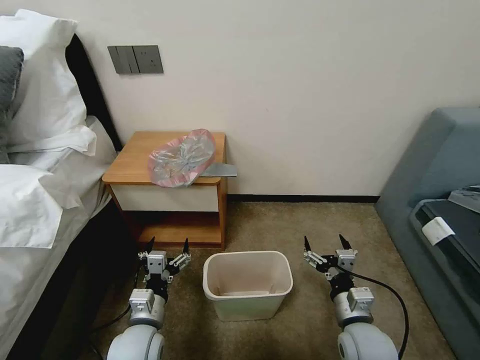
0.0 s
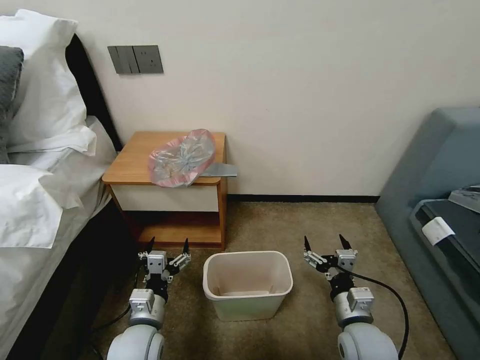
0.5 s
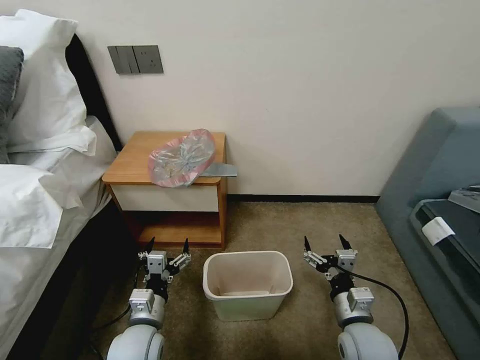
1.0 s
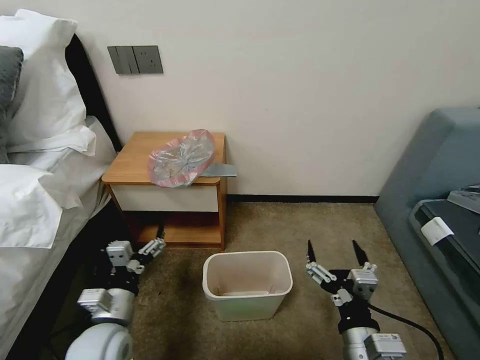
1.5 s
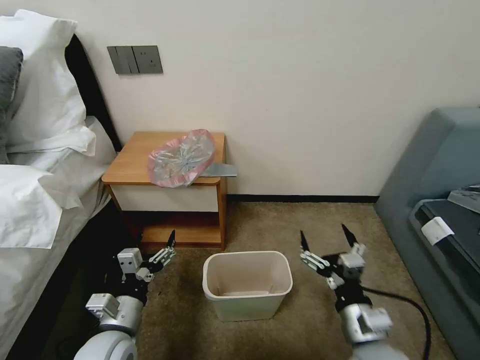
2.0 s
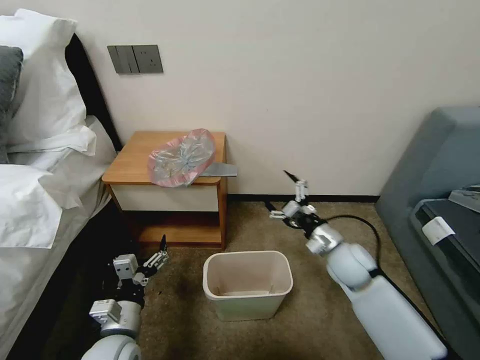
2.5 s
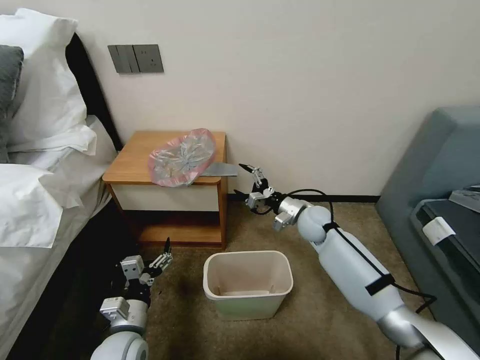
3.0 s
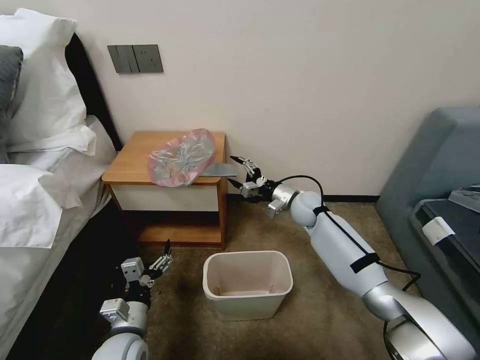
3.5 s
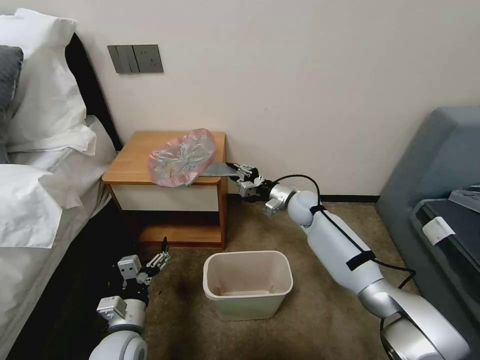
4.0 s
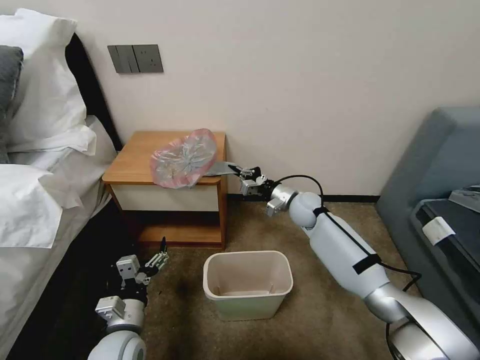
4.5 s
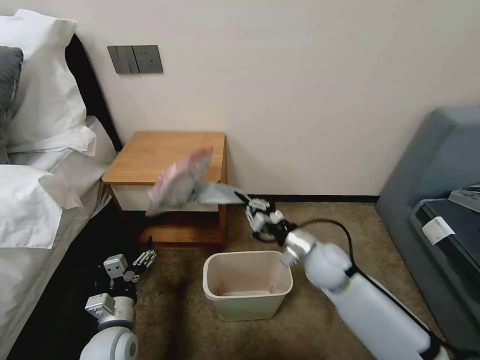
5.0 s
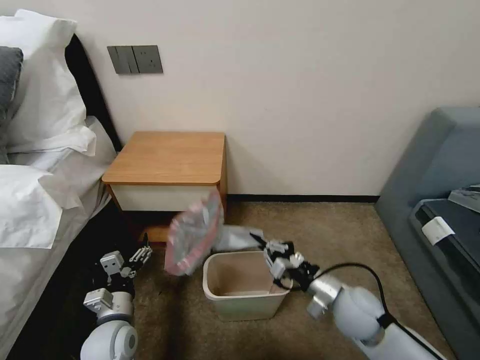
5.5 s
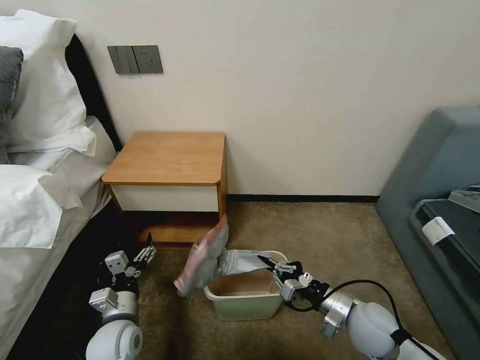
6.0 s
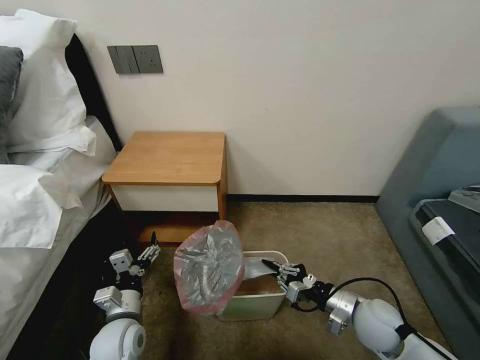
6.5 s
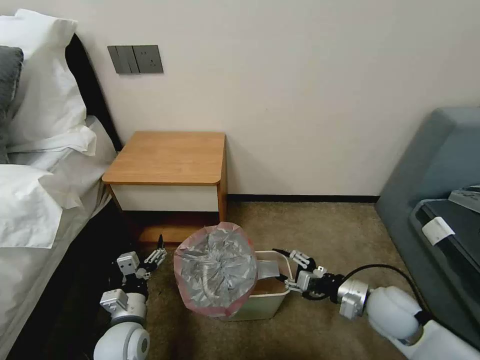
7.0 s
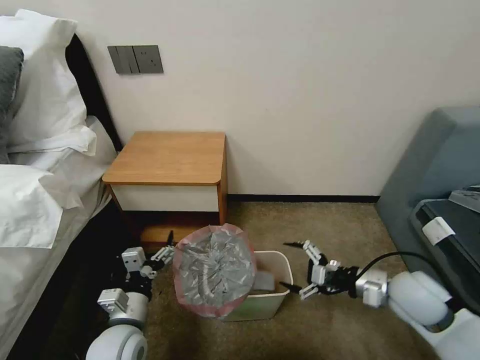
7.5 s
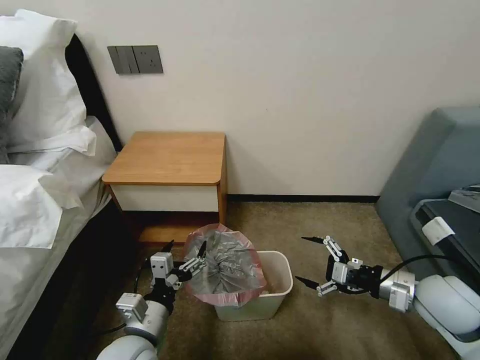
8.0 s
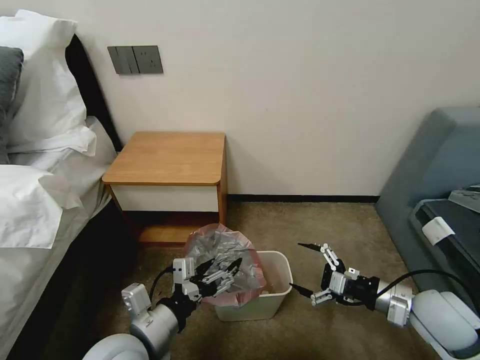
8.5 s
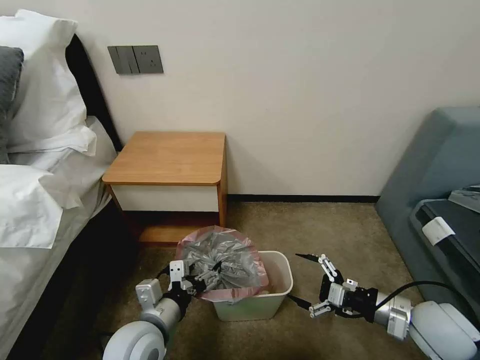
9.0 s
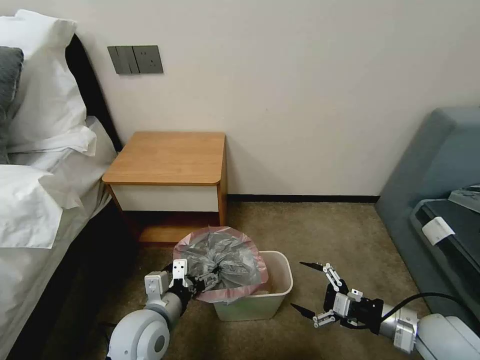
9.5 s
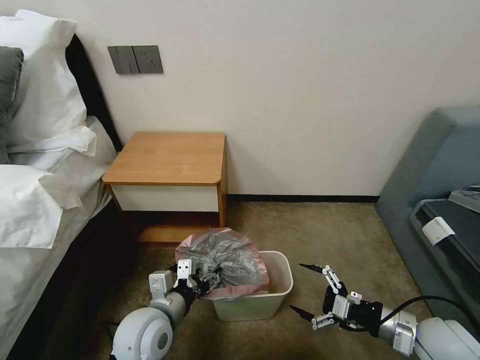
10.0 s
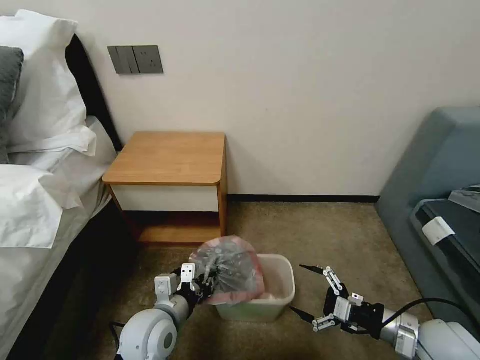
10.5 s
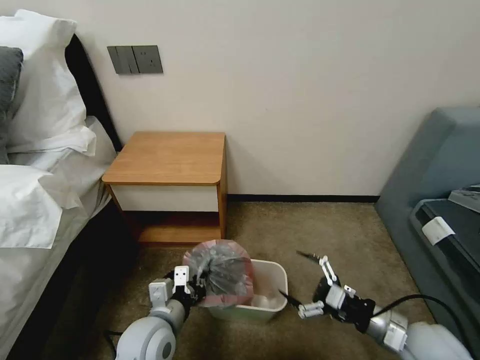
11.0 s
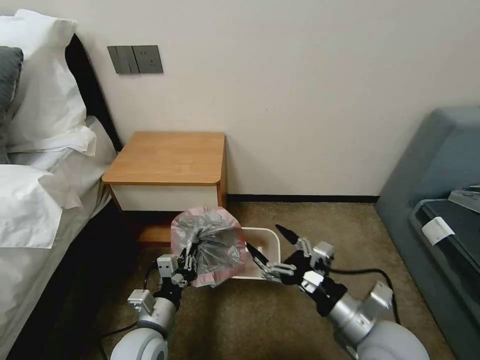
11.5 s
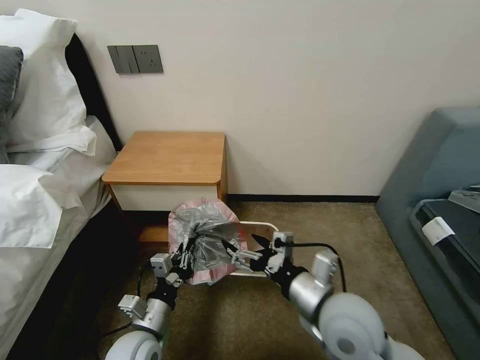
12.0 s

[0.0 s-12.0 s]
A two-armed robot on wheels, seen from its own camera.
Task of the whole recording: Pick up the garbage bag from the table and place it over the trash can.
2.0 to 4.0 s: The right gripper travels forward by about 40 cm, and closes up.
4.0 to 6.0 s: The right gripper is displaced backward by about 30 cm.
6.0 to 8.0 s: Both grippers move upward and to the right, some 10 cm. The right gripper opens its fingers.
8.0 to 10.0 s: The right gripper shifts approximately 10 cm backward and downward.
10.0 to 12.0 s: The right gripper shifts roughly 20 cm to the left. Meanwhile the left gripper travels downward by some 5 cm, and closes its fingers.

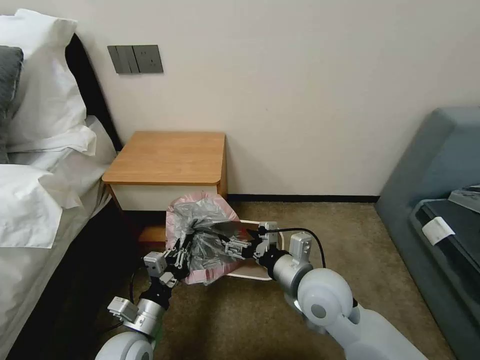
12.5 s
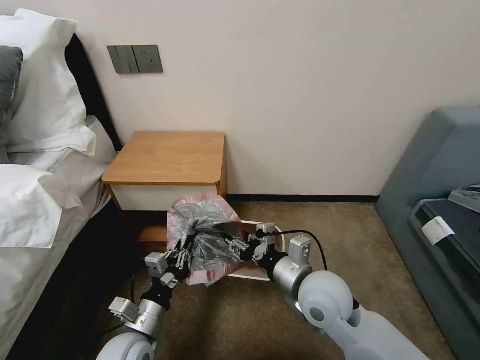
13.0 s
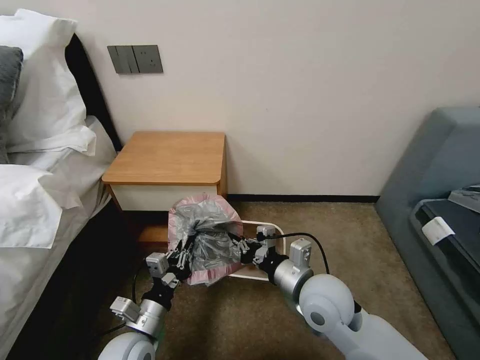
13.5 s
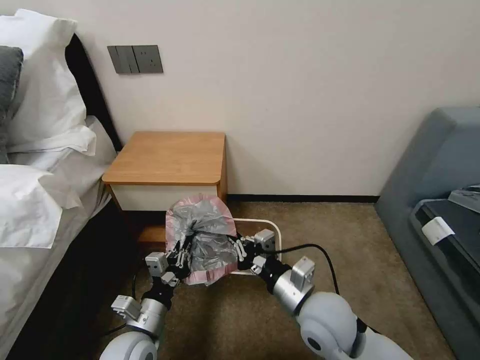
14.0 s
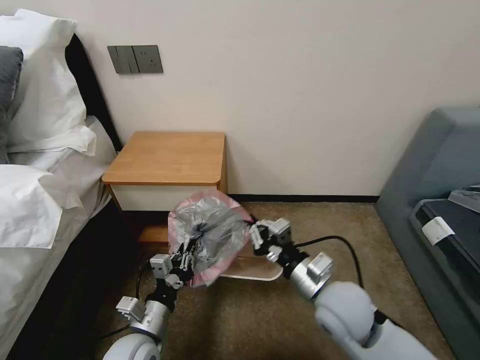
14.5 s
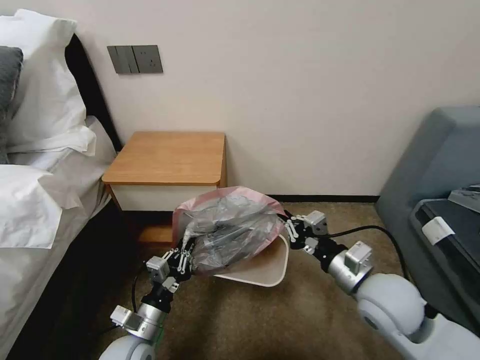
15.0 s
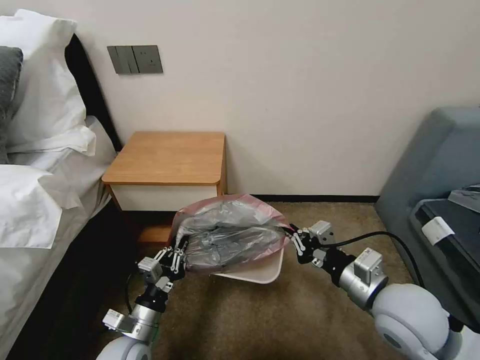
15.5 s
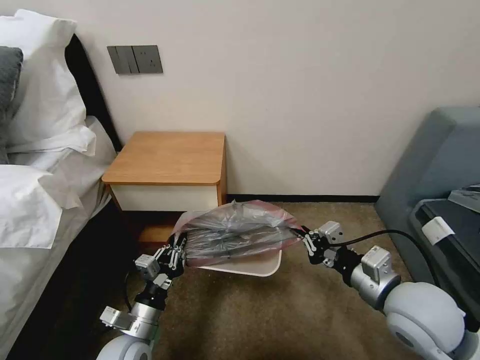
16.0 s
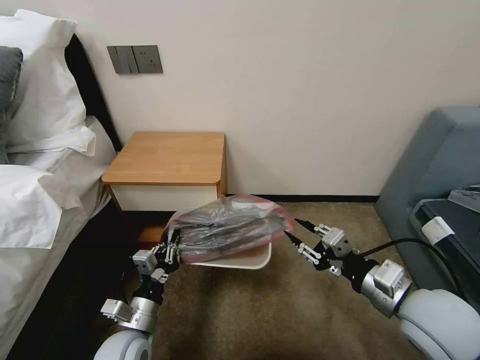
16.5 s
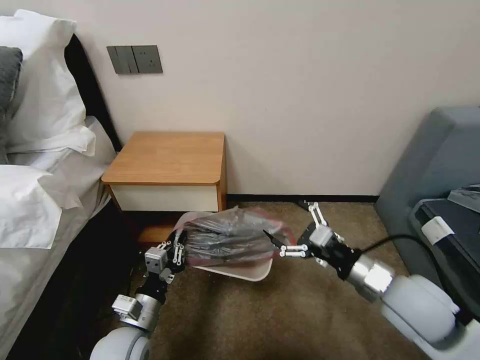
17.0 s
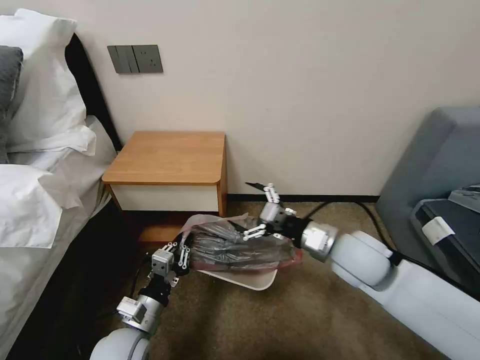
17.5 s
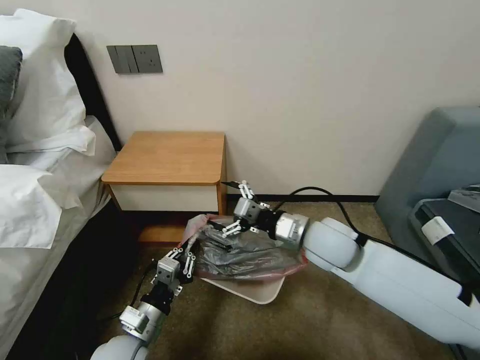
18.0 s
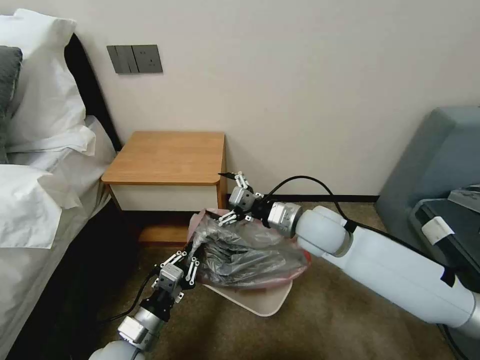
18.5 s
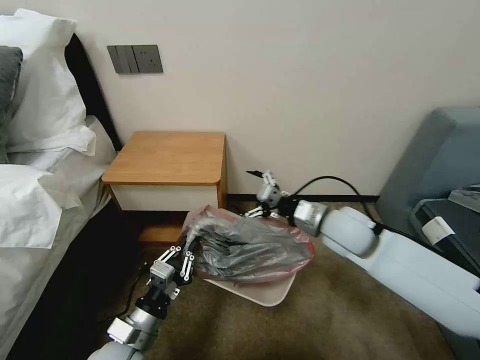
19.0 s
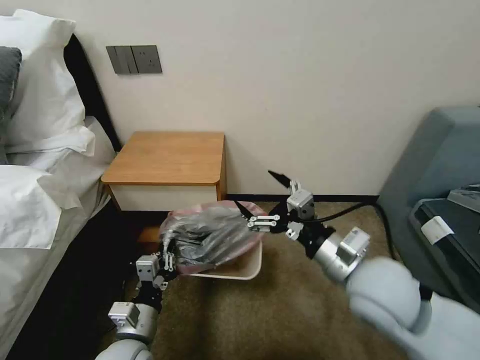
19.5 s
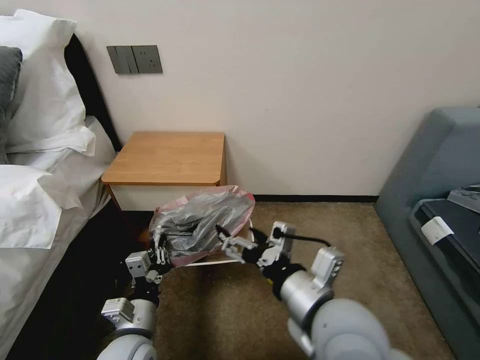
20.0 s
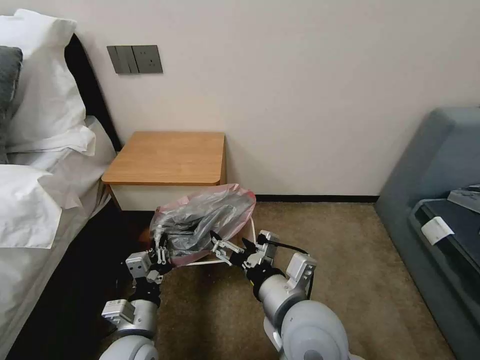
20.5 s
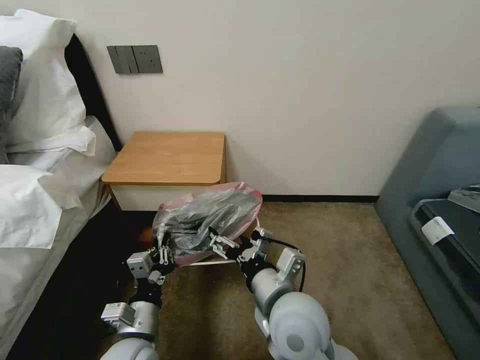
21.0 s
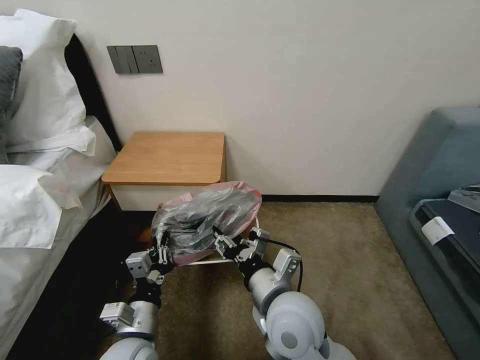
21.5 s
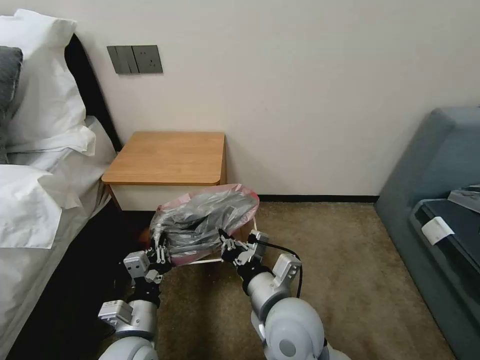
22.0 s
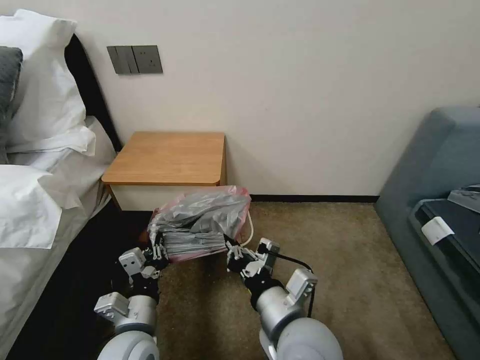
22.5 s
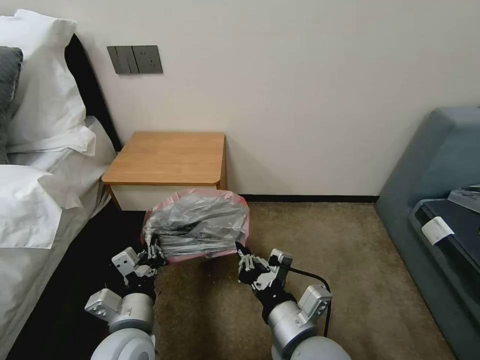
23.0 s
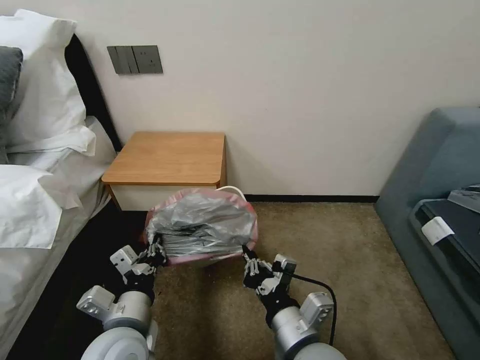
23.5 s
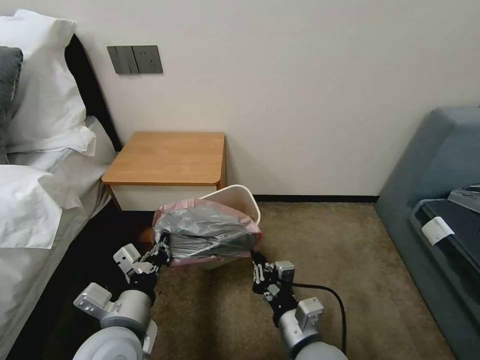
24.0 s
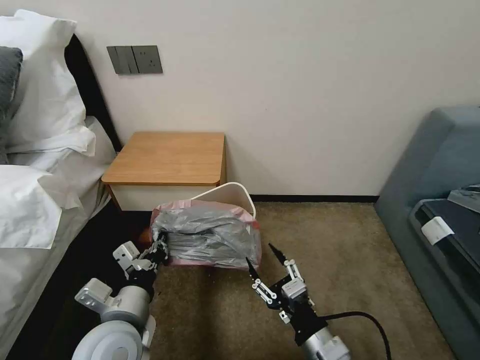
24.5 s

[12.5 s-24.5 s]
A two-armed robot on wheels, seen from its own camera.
Task of the whole recording: Pick up the garbage bag from the table and place it over the trash can.
12.5 to 14.5 s: The right gripper closes up.
14.5 to 16.5 s: The right gripper moves to the right and upward, roughly 10 cm, and opens up.
16.5 to 18.5 s: The right gripper travels forward and to the left by roughly 20 cm, and opens up.
18.5 to 20.5 s: The right gripper heads backward, covering some 20 cm.
20.5 to 22.5 s: The right gripper closes up.
22.5 to 24.5 s: The left gripper travels upward by approximately 5 cm, while the right gripper shifts roughly 10 cm to the right and downward, and opens its fingers.

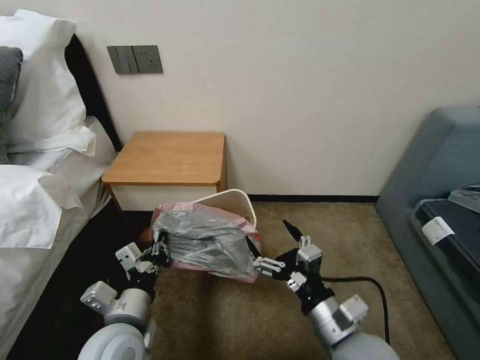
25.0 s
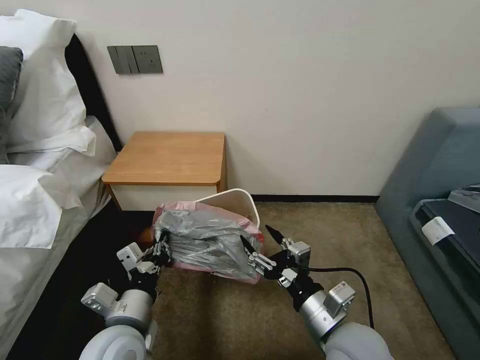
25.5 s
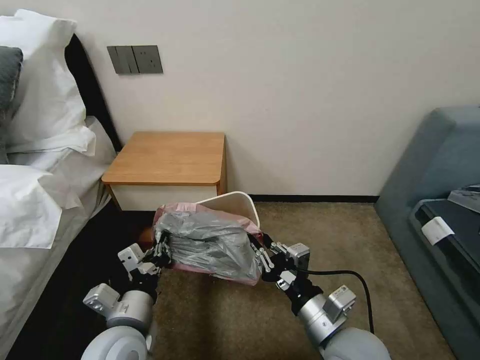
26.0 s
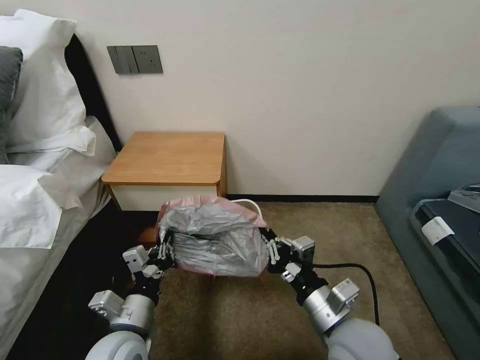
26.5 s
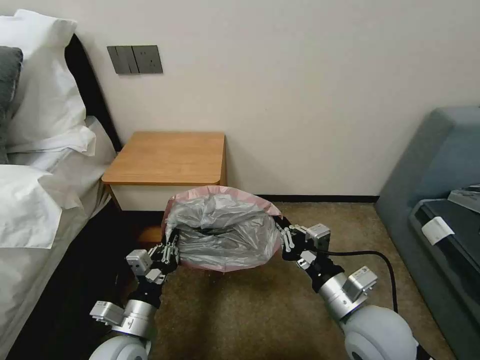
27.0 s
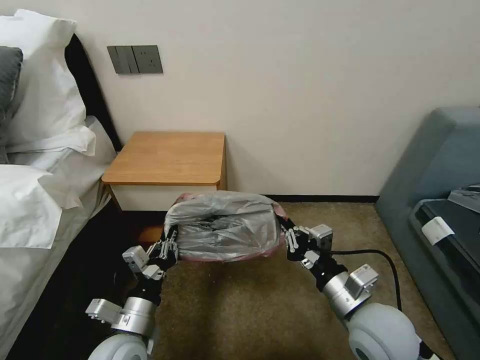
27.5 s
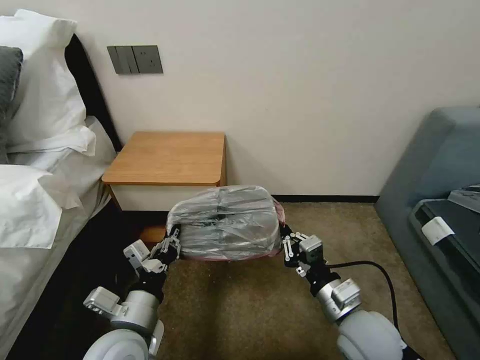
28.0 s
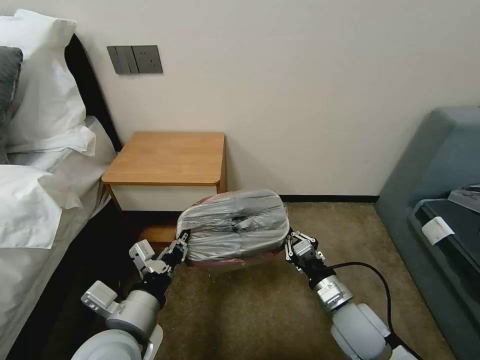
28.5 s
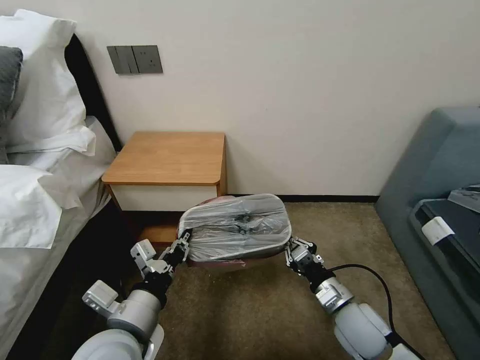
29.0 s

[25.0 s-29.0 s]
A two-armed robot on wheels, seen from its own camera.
Task of the whole recording: Pick up the garbage bag from the table and place it over the trash can.
25.0 to 27.0 s: The left gripper travels downward by approximately 5 cm; the right gripper closes.
27.0 to 29.0 s: The right gripper goes about 10 cm downward, while the left gripper goes roughly 10 cm upward.
